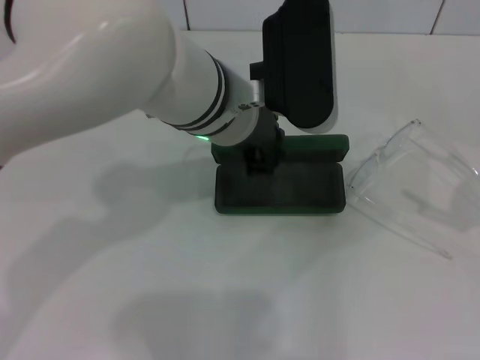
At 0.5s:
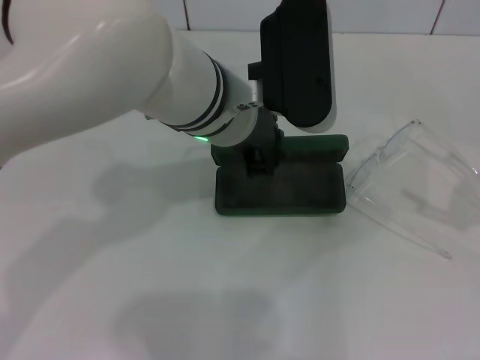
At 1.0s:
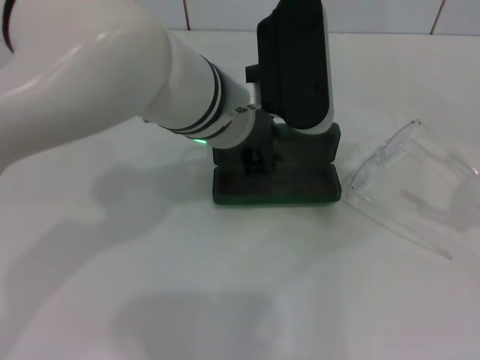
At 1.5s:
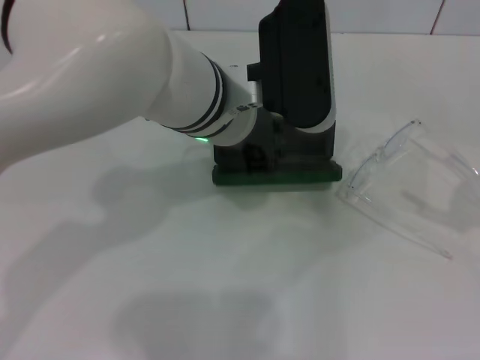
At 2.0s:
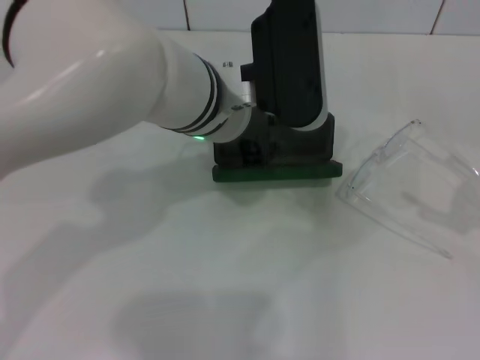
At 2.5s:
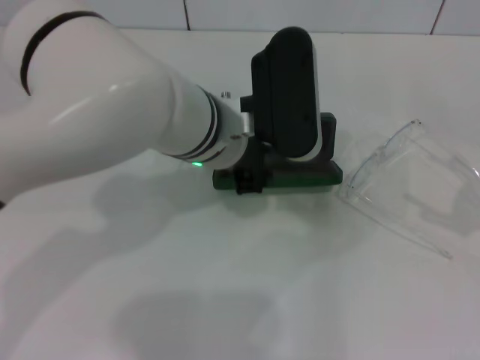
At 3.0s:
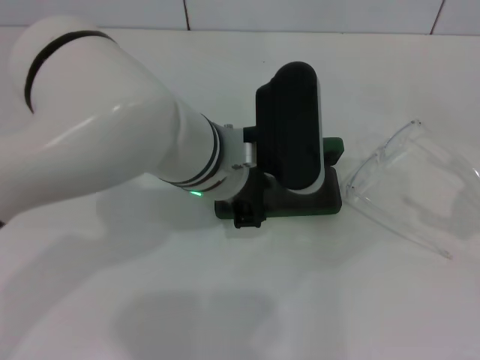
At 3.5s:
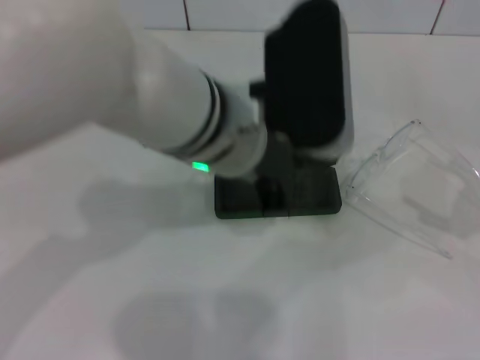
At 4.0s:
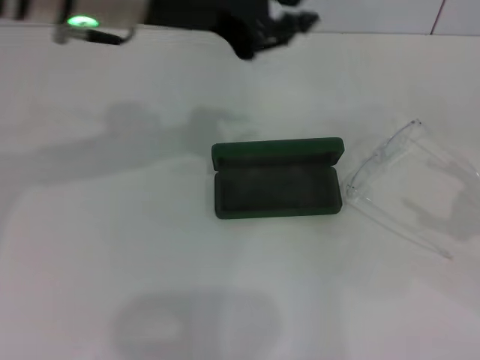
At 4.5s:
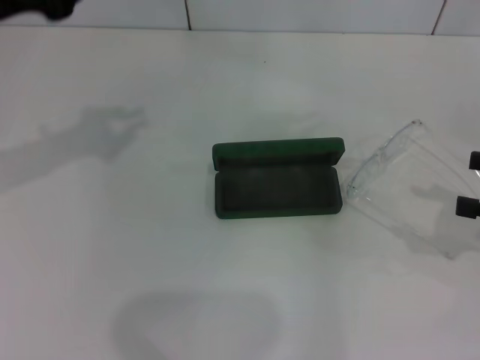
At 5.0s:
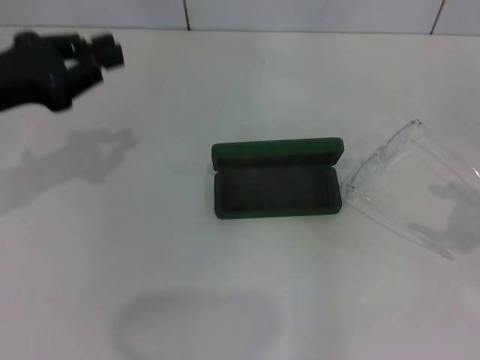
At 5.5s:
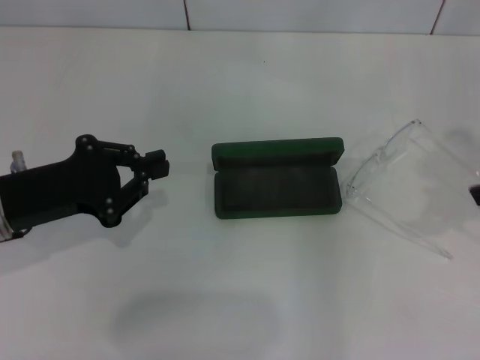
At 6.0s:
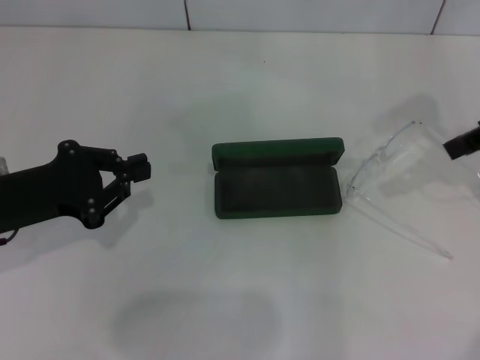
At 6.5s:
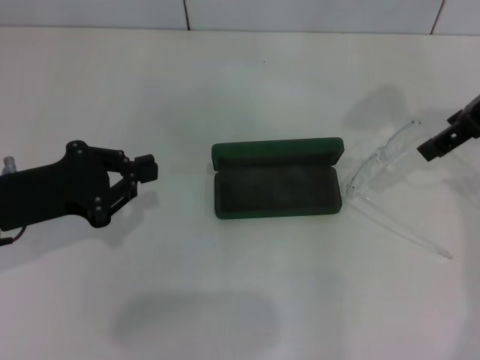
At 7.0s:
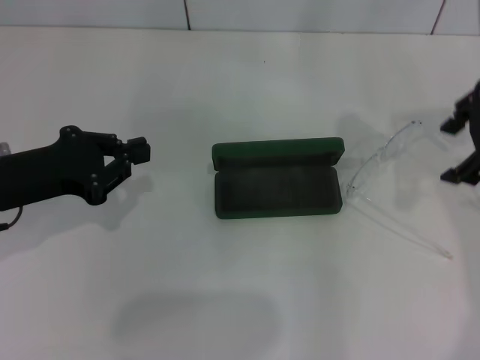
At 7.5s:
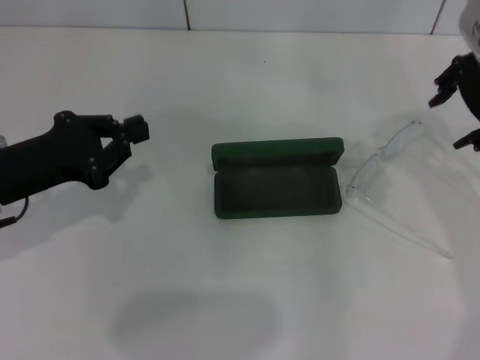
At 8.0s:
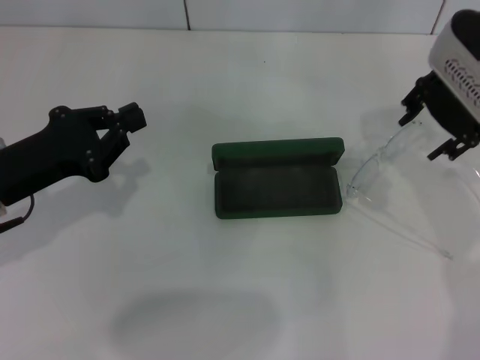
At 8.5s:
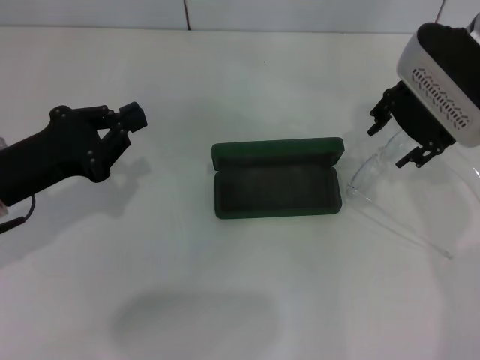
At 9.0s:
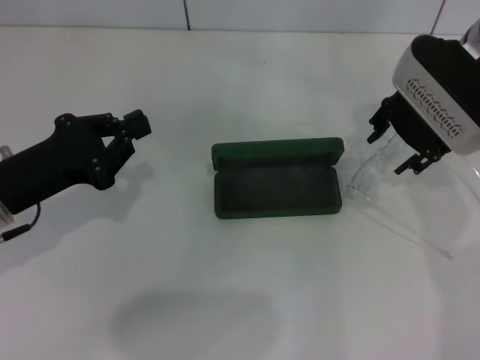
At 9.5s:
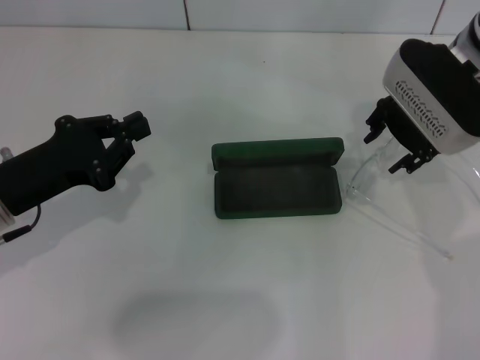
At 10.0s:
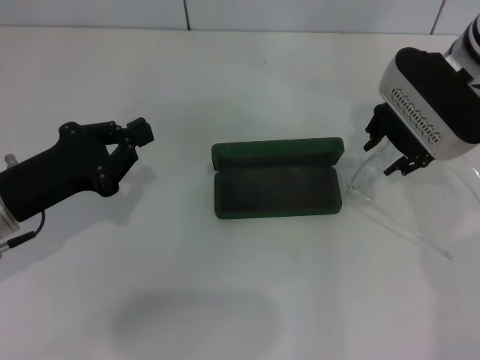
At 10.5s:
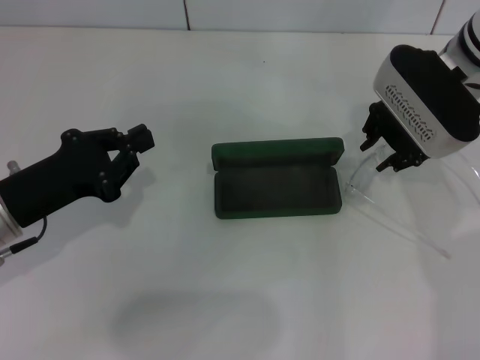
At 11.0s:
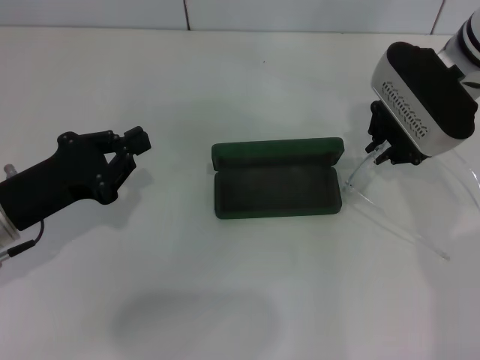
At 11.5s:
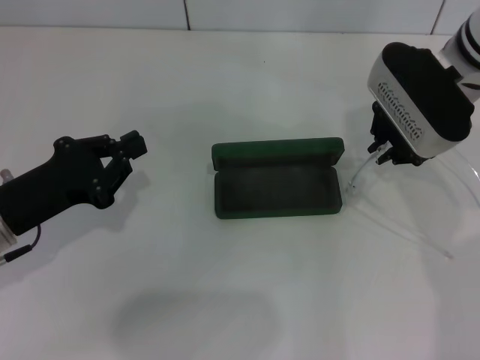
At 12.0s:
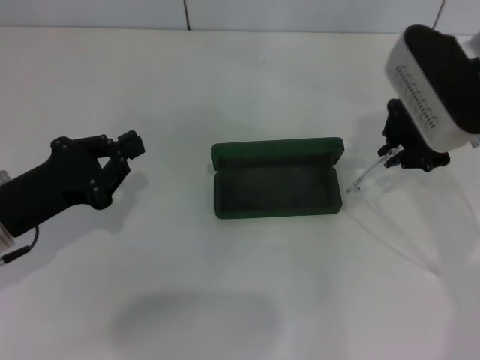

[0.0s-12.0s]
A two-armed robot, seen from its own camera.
Step, 0.0s to 3.0s: Place the glasses case in the center of the table with your left hand.
Step, 3.5s to 11.5s: Grab the eyeglass frame with your right hand.
0.0s to 2.0s: Neither gripper changes place.
2.0s to 4.0s: The left gripper goes roughly 15 cm upward and to the left.
4.0s to 6.0s: The left gripper heads downward, to the left and backward, covering some 25 cm; the right gripper travels upward, to the left and forward by approximately 20 cm.
6.0s to 8.0s: The right gripper goes about 10 cm to the left.
8.0s to 10.0s: The right gripper heads downward, covering some 5 cm.
10.0s to 12.0s: The right gripper closes.

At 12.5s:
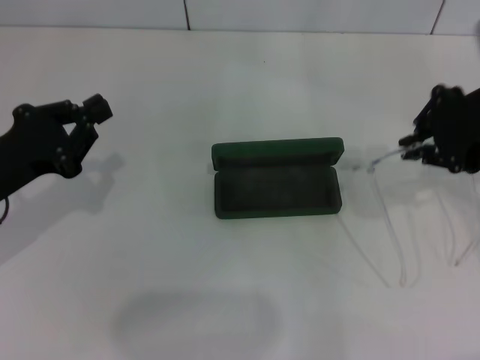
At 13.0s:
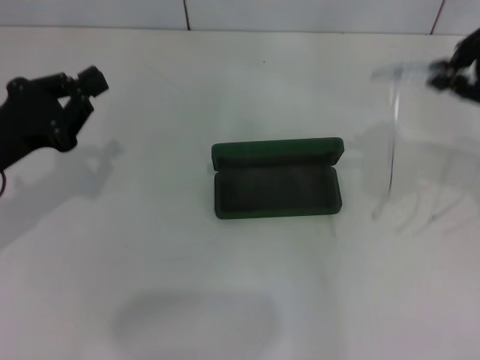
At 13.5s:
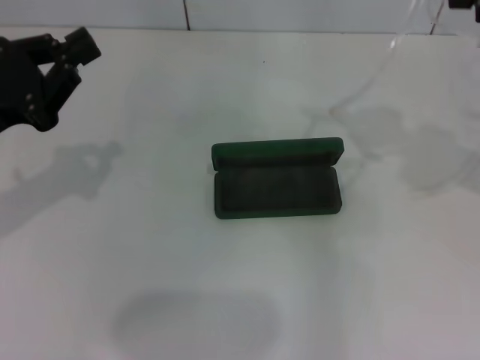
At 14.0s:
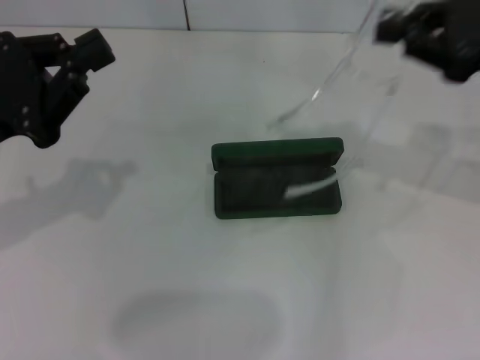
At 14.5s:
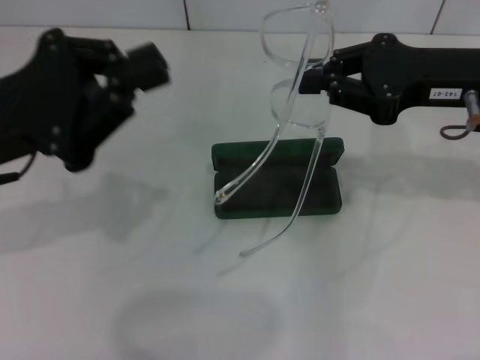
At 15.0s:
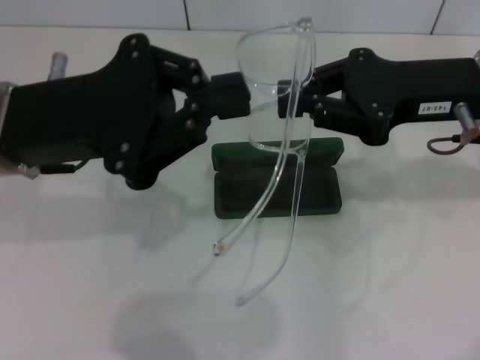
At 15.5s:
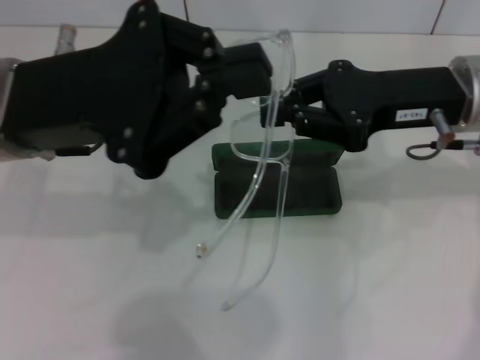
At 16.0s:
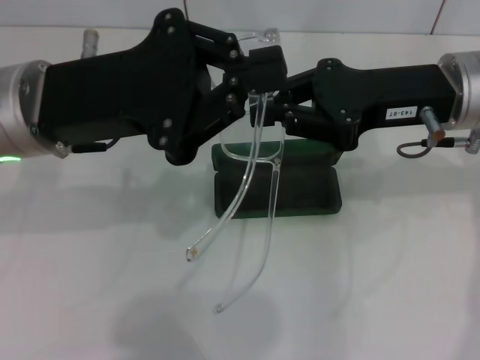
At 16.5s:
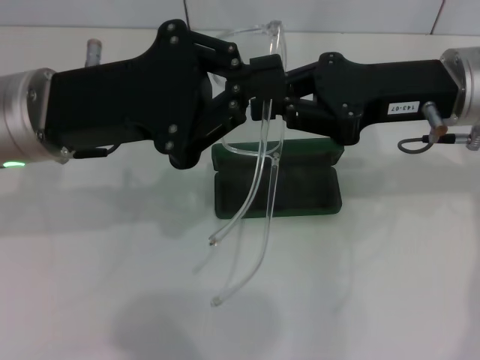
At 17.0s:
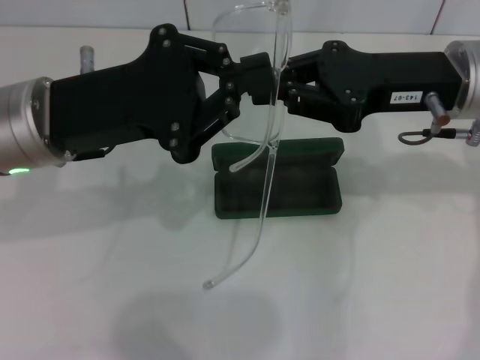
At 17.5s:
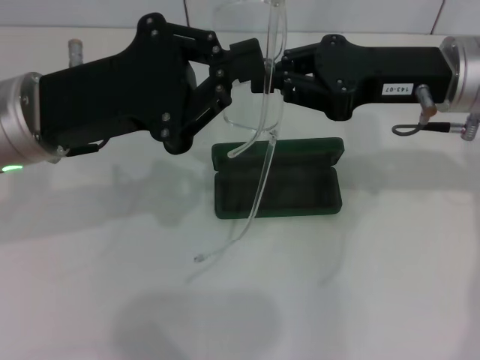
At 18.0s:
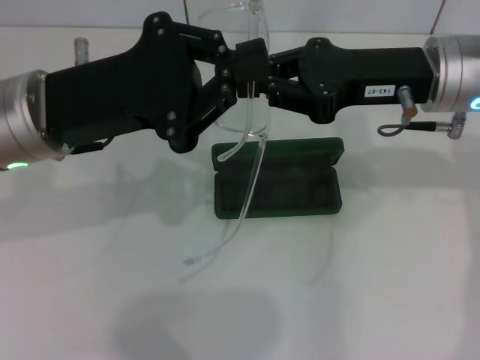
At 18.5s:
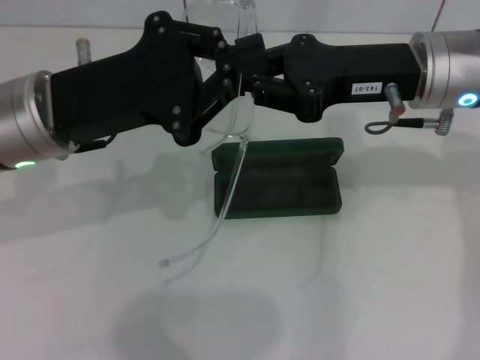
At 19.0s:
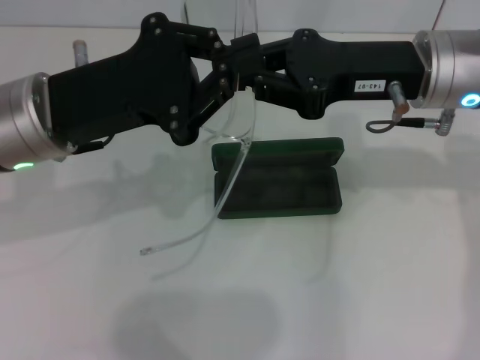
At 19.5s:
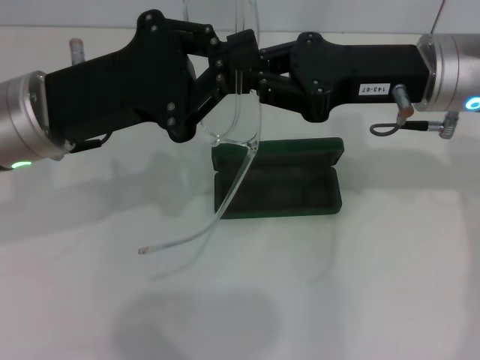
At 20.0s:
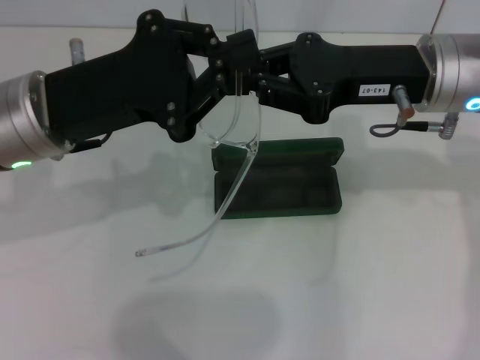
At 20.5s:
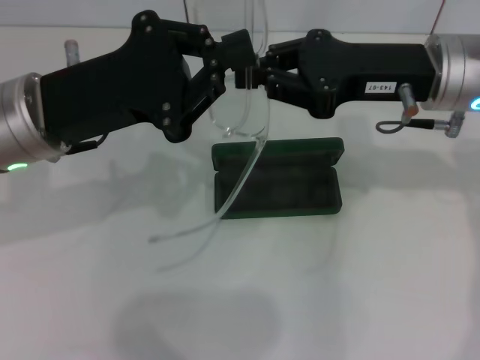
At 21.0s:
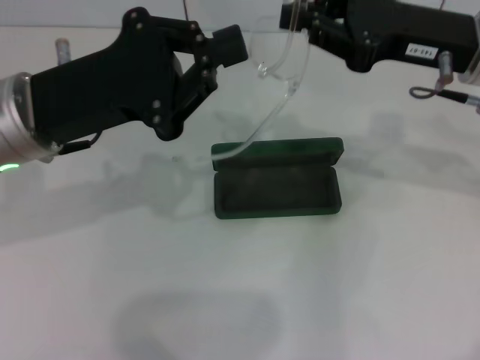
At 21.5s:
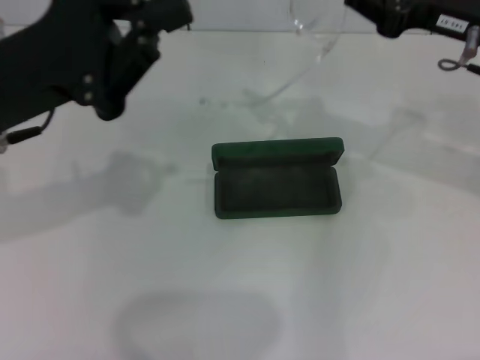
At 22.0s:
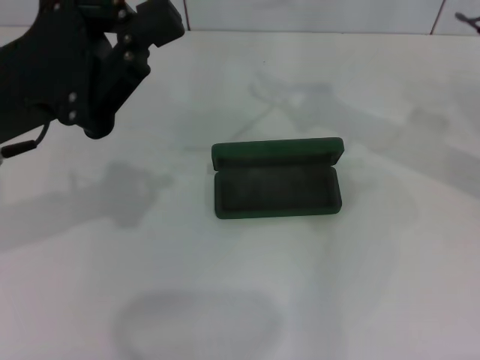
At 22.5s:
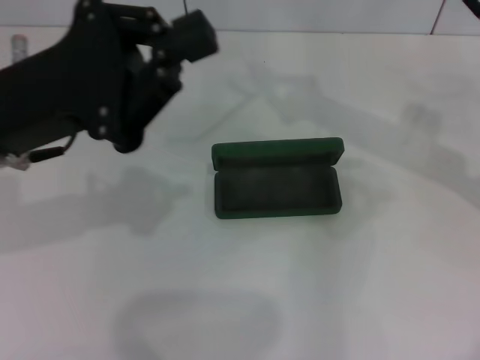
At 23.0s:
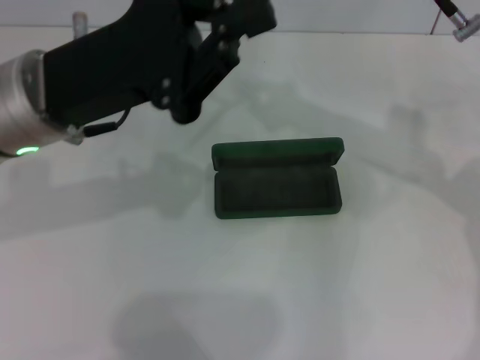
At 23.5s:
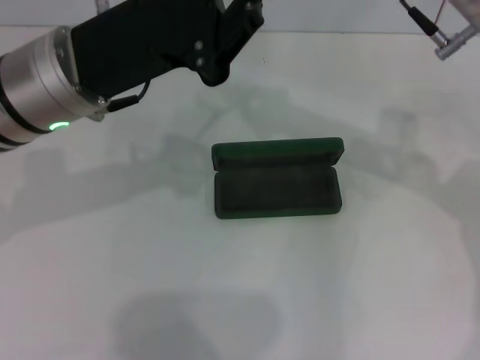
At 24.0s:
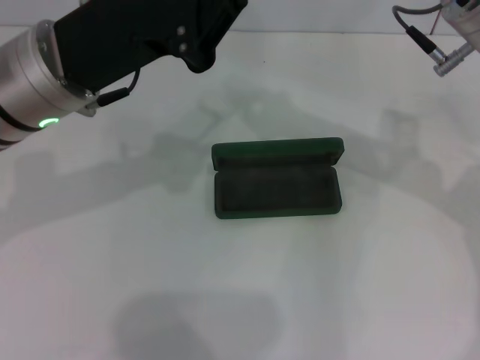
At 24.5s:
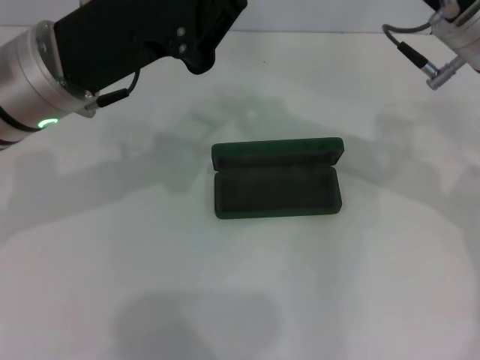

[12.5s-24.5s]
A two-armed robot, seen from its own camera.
12.5s to 14.5s: The right gripper moves some 5 cm upward and comes back. Meanwhile the left gripper moves upward, approximately 10 cm.
14.5s to 16.5s: The left gripper moves to the right, approximately 5 cm.
16.5s to 18.5s: The grippers make only small movements.
18.5s to 20.5s: Neither gripper changes place.
20.5s to 22.5s: The right gripper shifts by approximately 5 cm.
22.5s to 24.5s: The right gripper moves approximately 5 cm. Meanwhile the left gripper shifts by approximately 5 cm.

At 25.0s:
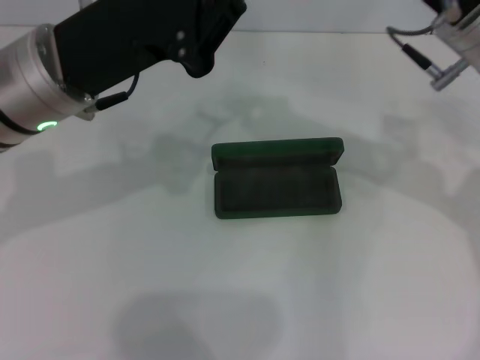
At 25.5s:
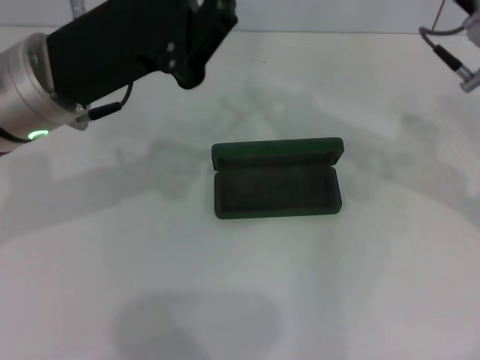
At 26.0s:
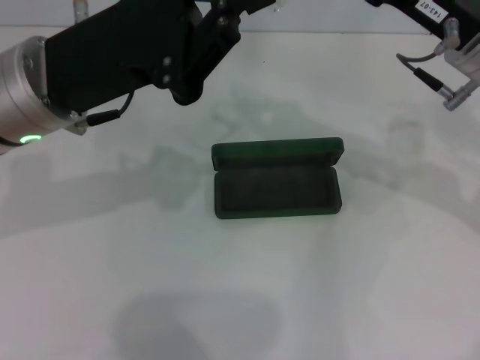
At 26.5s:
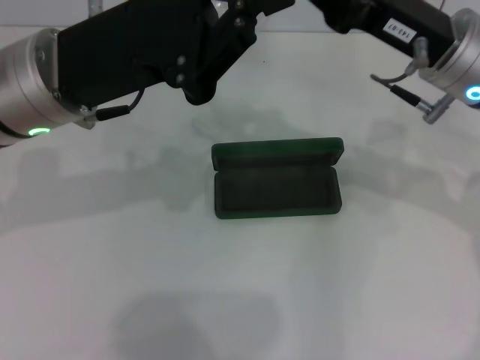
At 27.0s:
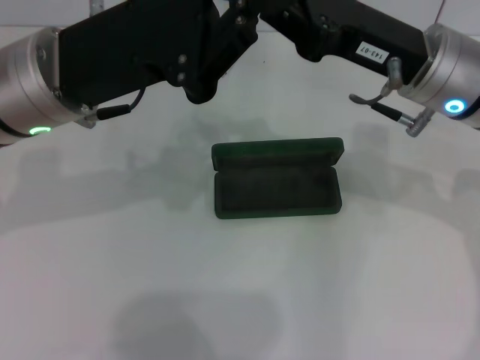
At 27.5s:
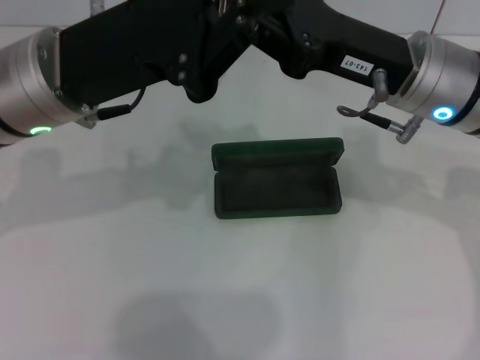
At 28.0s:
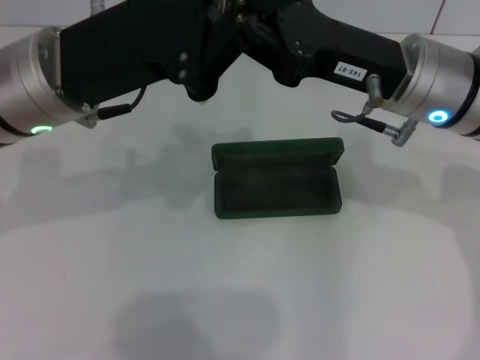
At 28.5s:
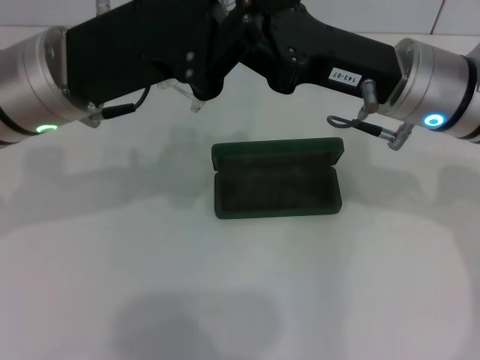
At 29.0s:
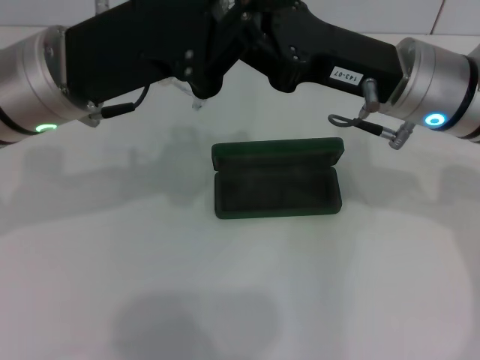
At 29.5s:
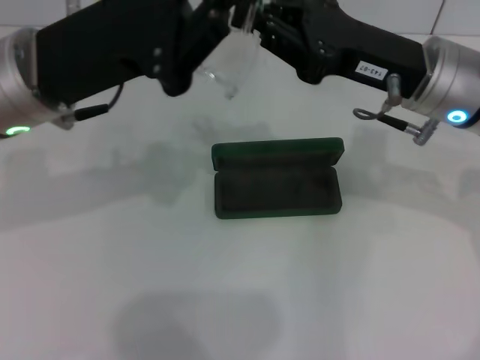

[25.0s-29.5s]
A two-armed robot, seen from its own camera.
25.0s to 29.5s: There are only small adjustments of the grippers.
